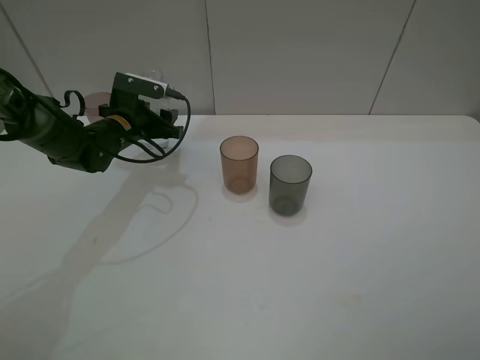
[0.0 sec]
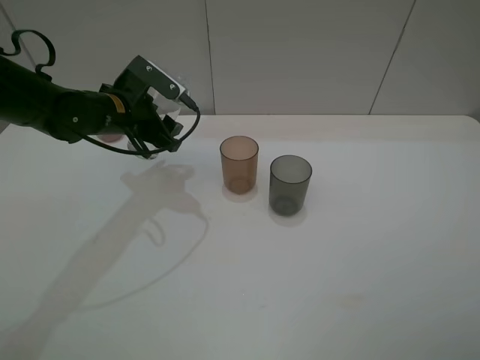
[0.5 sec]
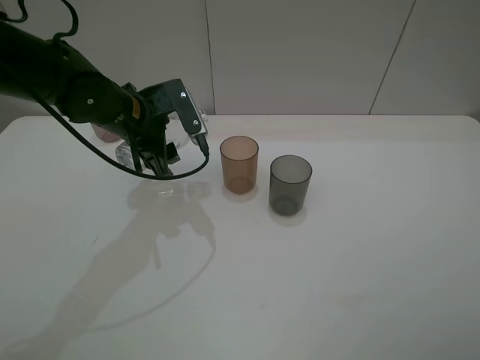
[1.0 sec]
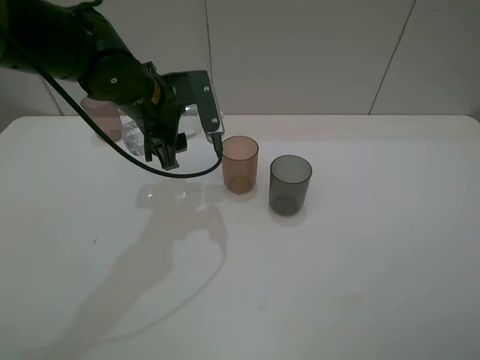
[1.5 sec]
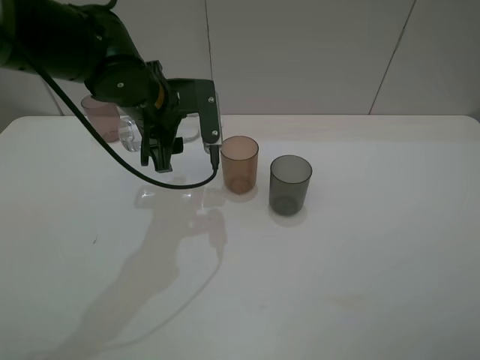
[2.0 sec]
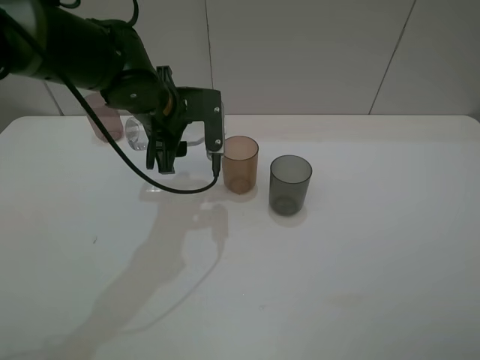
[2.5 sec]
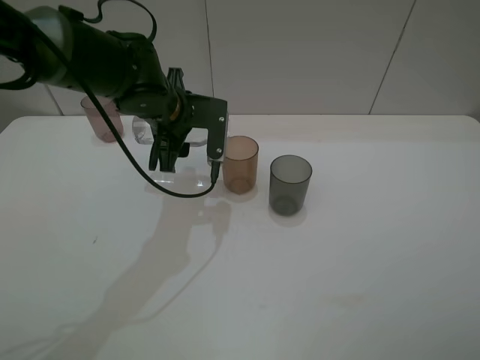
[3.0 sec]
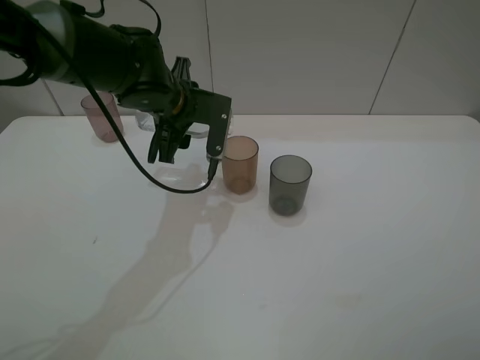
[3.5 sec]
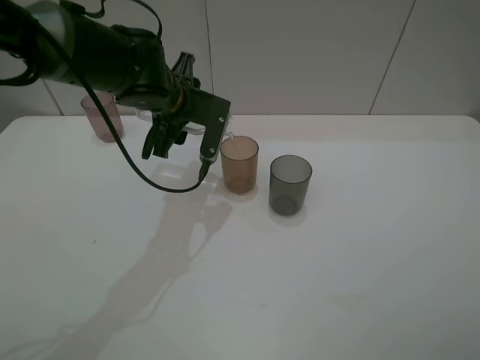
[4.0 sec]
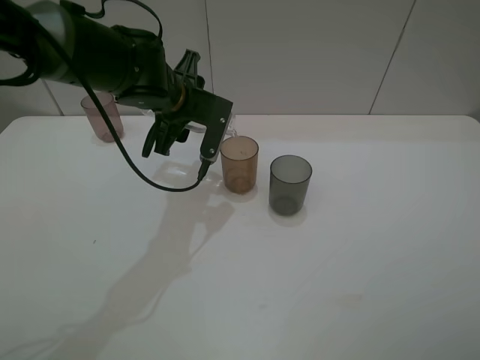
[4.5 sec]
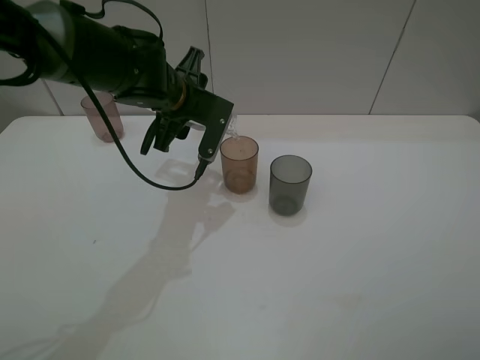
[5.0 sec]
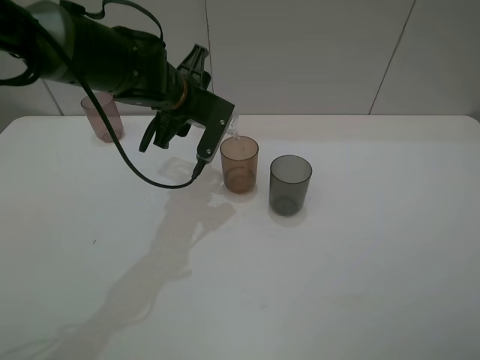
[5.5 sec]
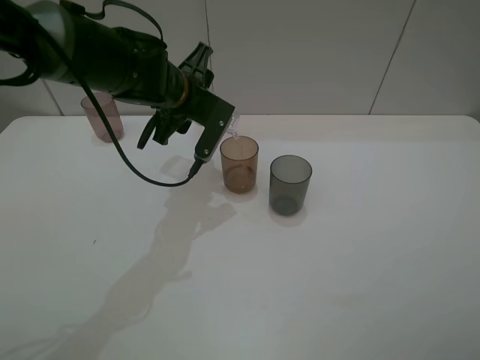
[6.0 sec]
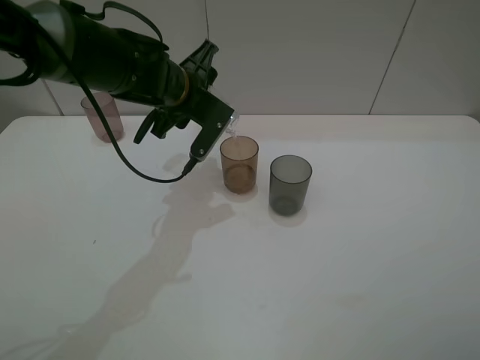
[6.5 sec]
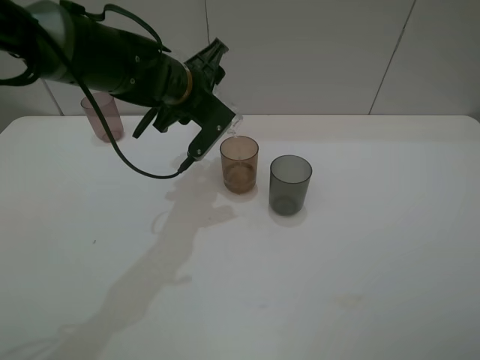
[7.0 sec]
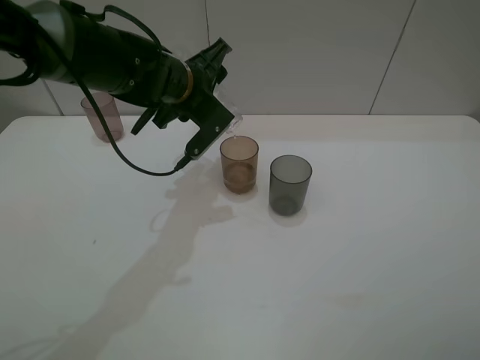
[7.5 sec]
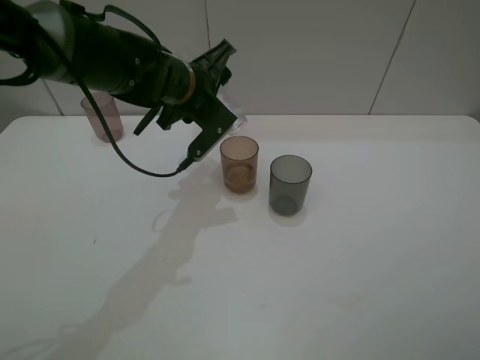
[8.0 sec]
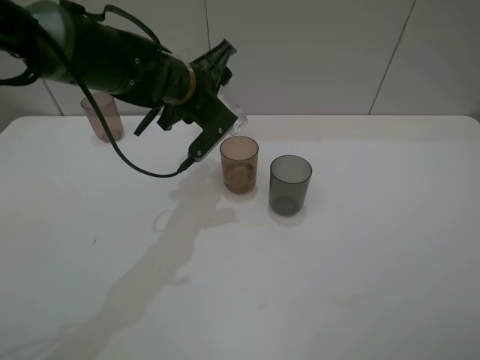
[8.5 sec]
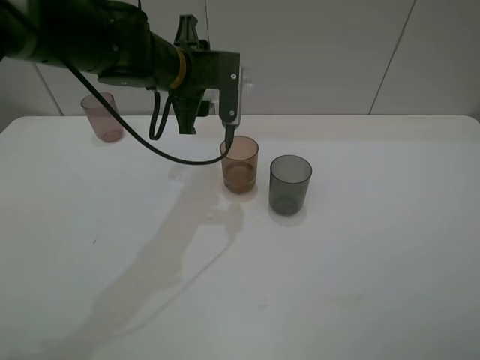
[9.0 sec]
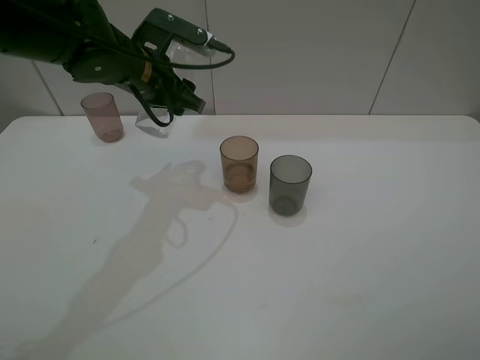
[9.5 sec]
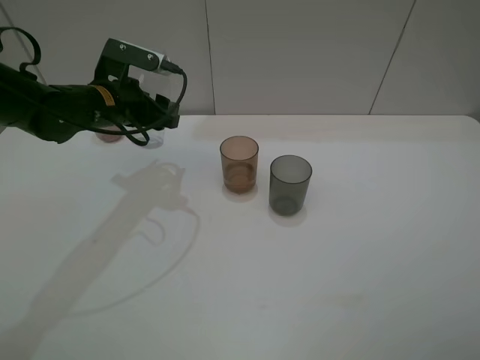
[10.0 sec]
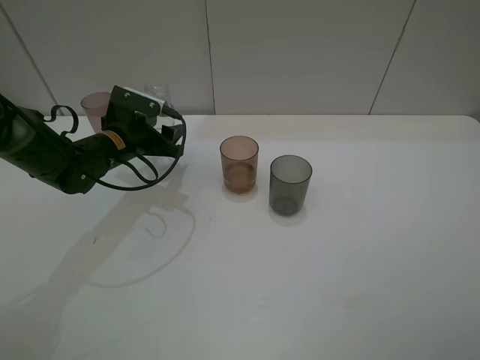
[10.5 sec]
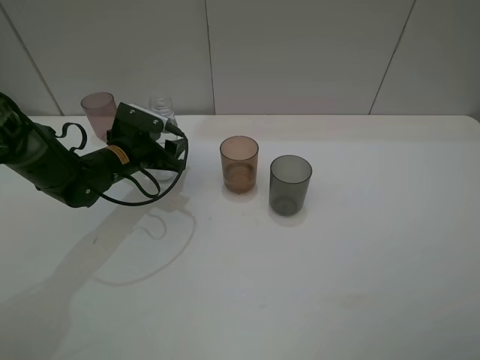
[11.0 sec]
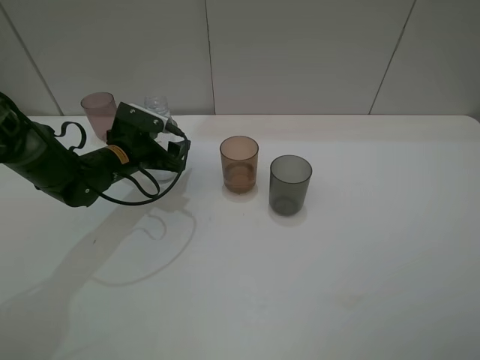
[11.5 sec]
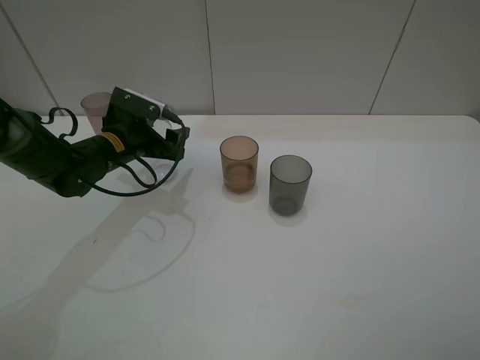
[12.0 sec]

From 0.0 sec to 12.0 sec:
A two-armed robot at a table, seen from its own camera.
Task of the whole recording: pick up the bottle filled with water and pour water into the middle cup of the three cups.
Step, from 0.0 sec to 9.0 sec: Pour water from transparent bottle to brown cup with the left gripper.
From 0.0 sec to 2.0 sec: The left gripper moves upward, to the right and backward, about 15 cm.
From 4.0 sec to 6.0 sec: The grippers move only a little.
From 6.0 sec to 8.0 sec: The grippers stay close to where they were, moving slightly.
From 8.0 sec to 10.0 sec: The left gripper heads to the left, covering roughly 10 cm.
From 10.0 sec to 12.0 sec: The left gripper moves downward, roughly 5 cm, and opens its fingers.

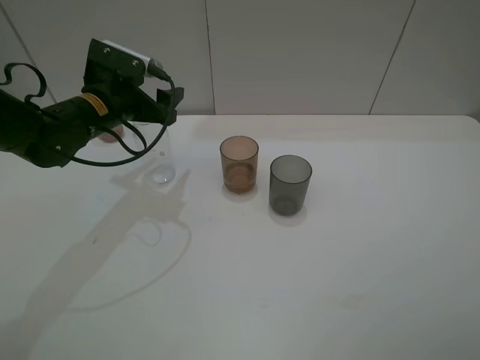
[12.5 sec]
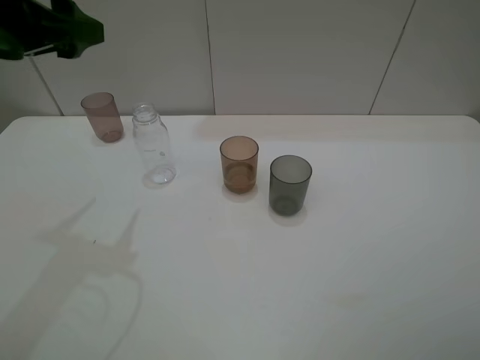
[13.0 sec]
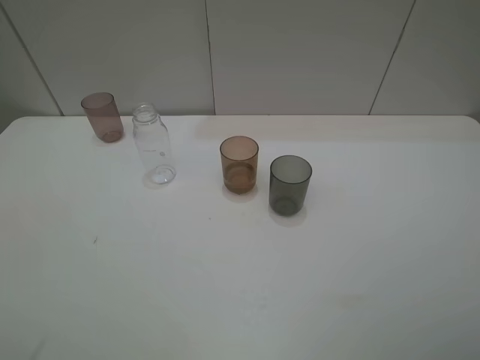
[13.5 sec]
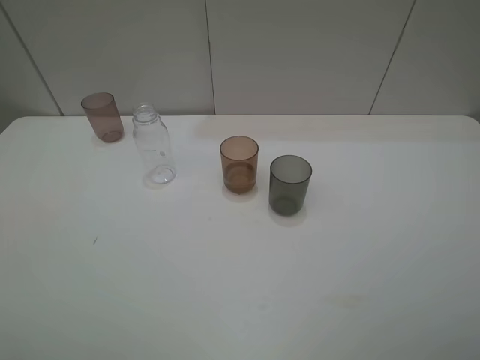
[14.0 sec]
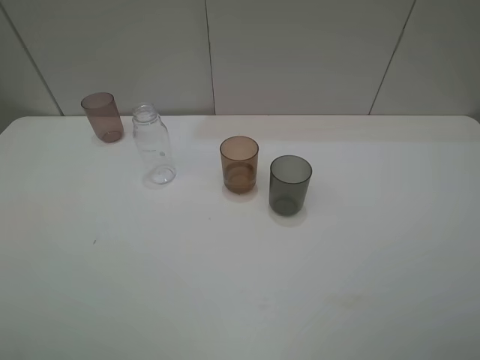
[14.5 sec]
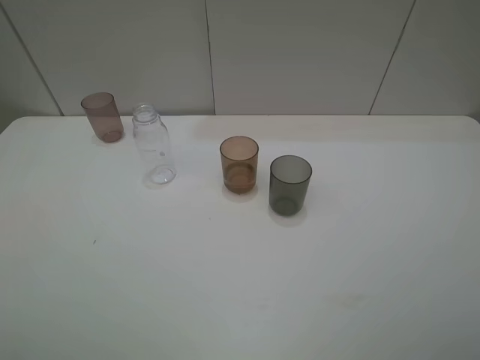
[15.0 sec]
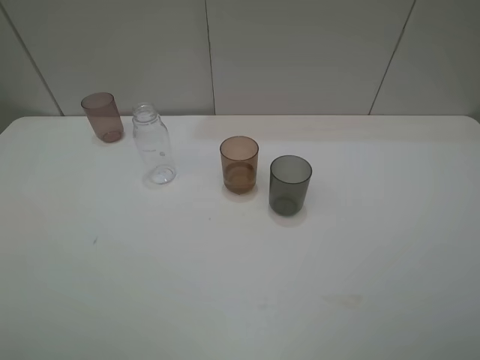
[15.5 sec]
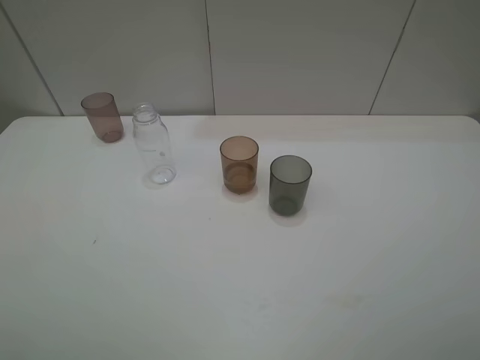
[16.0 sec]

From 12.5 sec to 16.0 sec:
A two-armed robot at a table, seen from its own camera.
Task of the whole recording: pick up the bottle filled with water and pour water into the middle cup of the three cups.
From 12.5 sec to 14.5 sec: The left gripper moves backward, about 35 cm.
